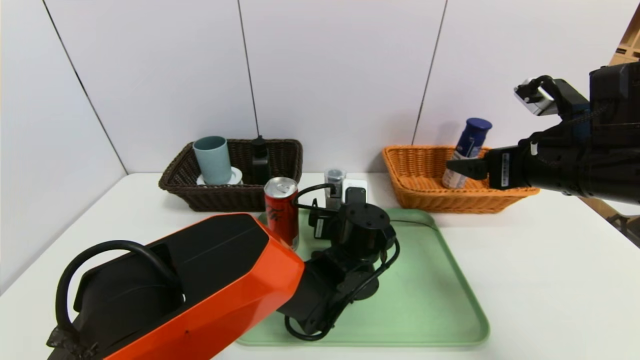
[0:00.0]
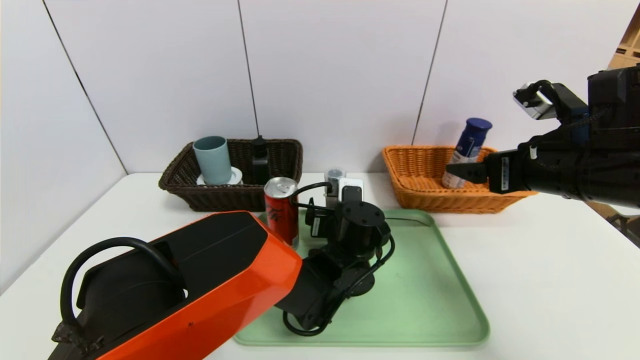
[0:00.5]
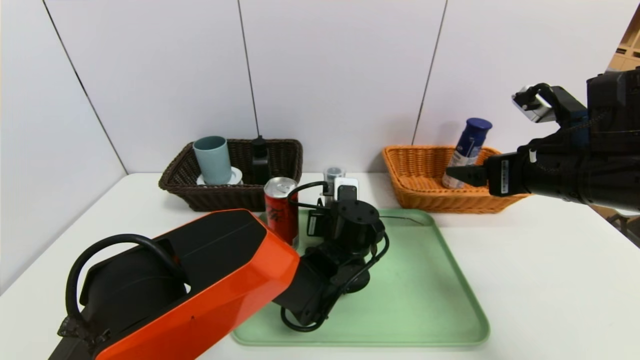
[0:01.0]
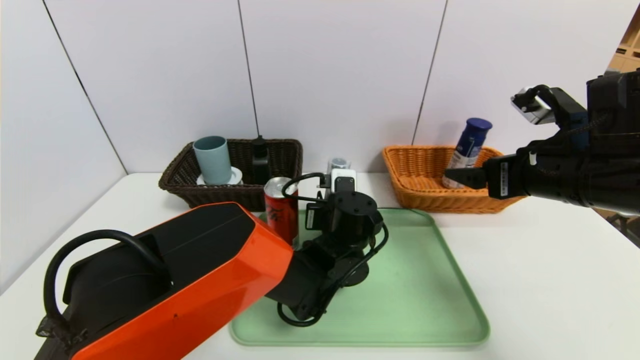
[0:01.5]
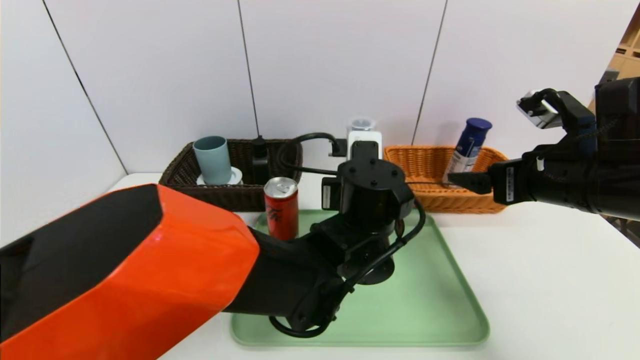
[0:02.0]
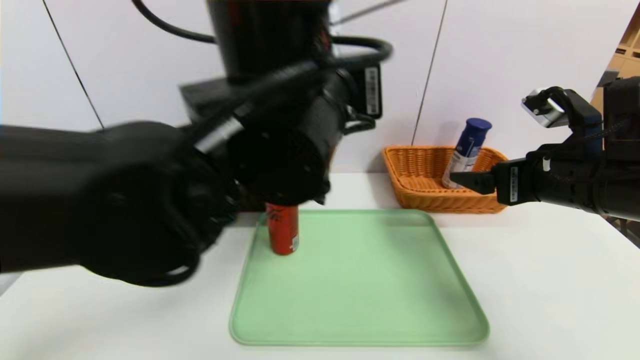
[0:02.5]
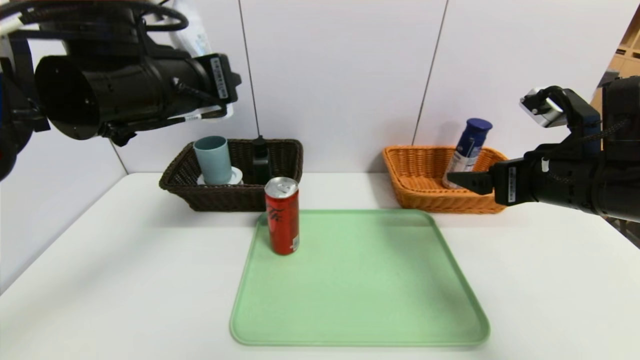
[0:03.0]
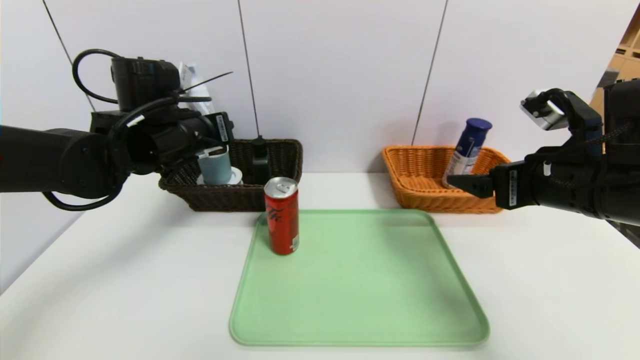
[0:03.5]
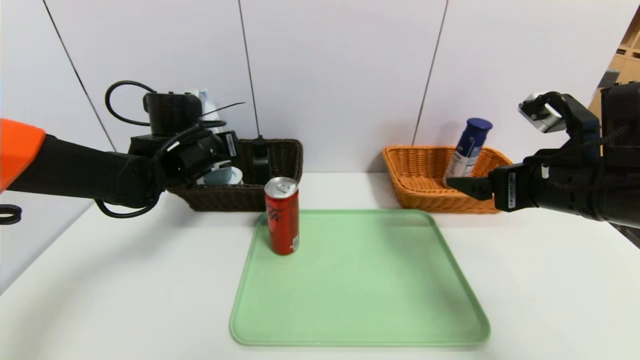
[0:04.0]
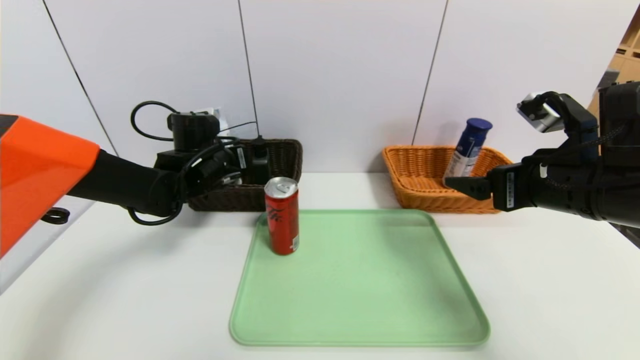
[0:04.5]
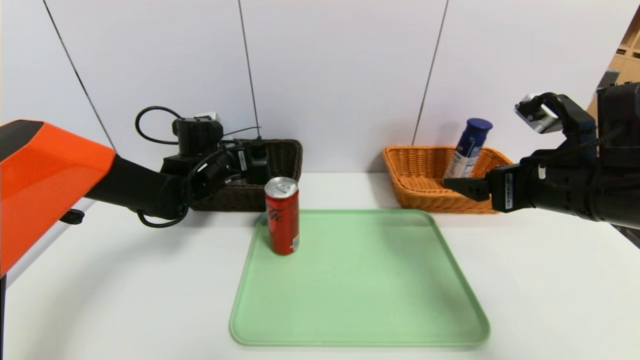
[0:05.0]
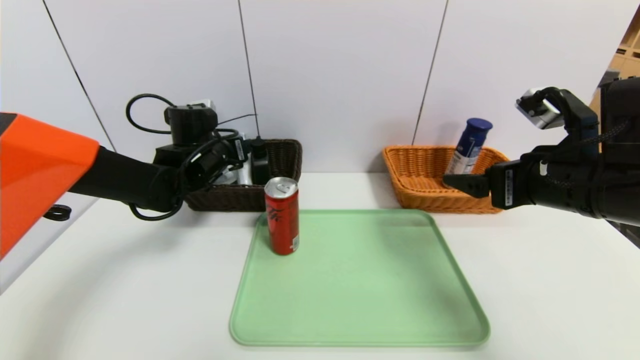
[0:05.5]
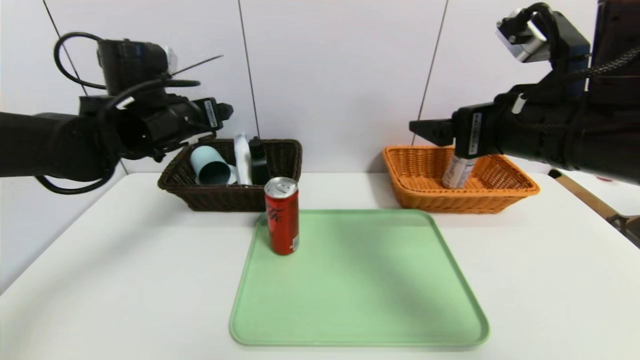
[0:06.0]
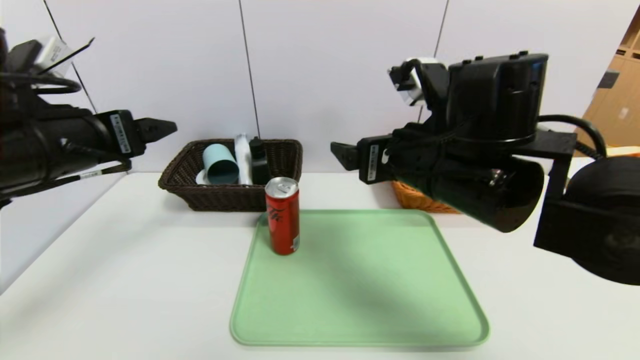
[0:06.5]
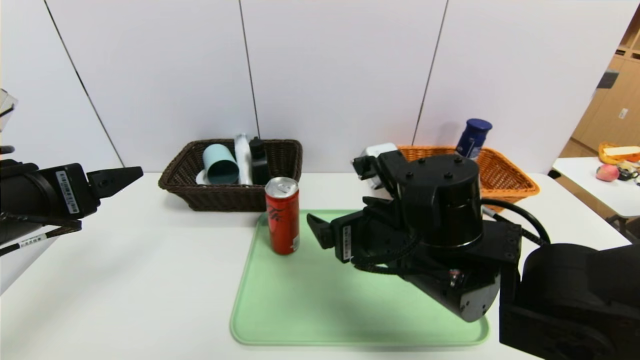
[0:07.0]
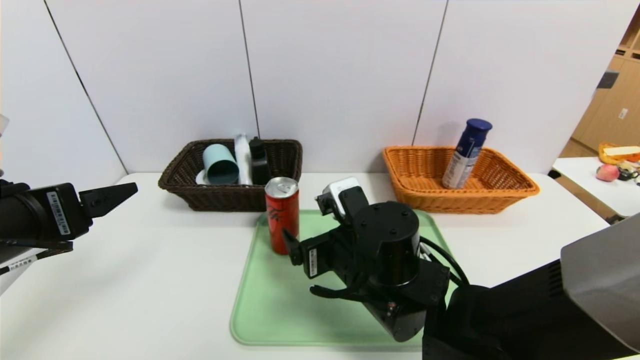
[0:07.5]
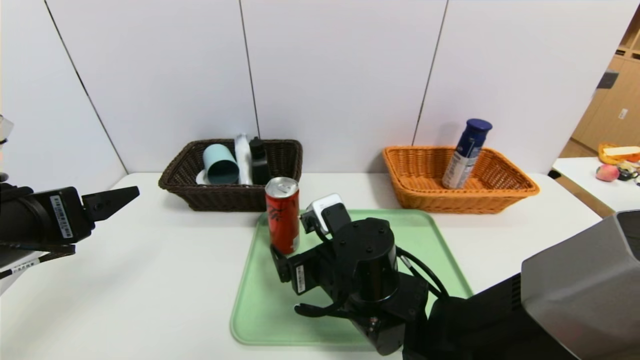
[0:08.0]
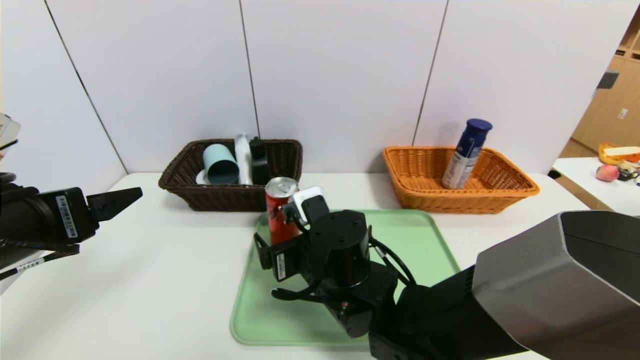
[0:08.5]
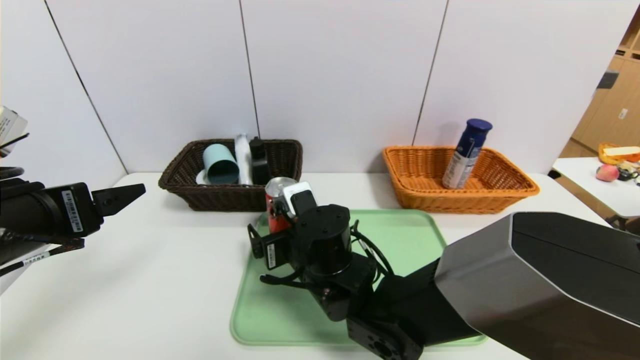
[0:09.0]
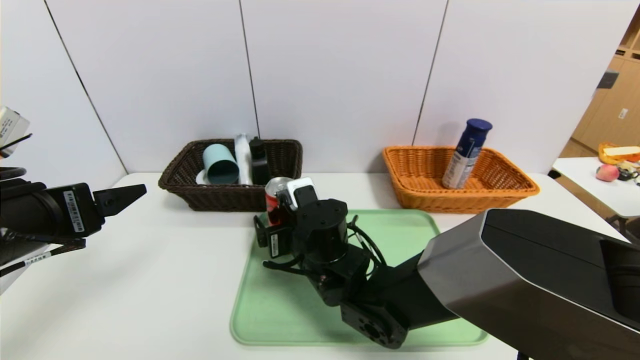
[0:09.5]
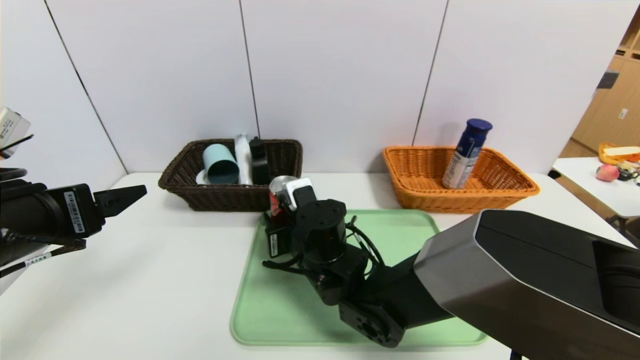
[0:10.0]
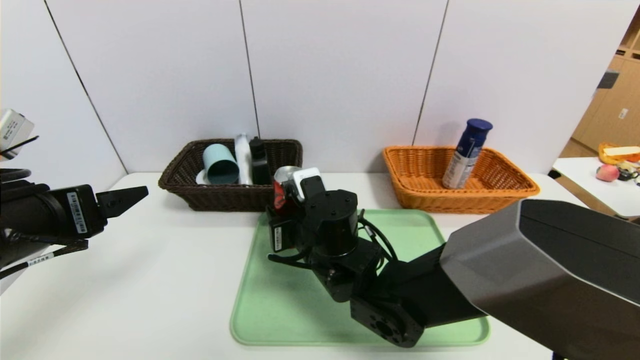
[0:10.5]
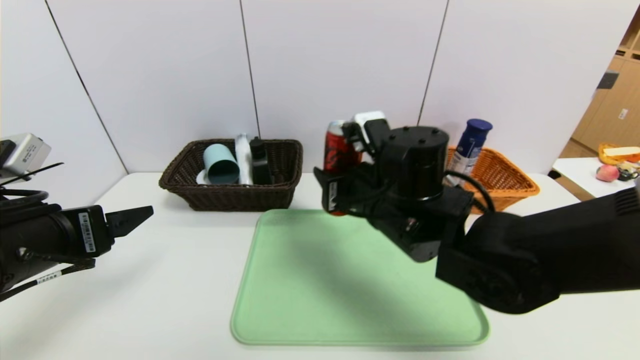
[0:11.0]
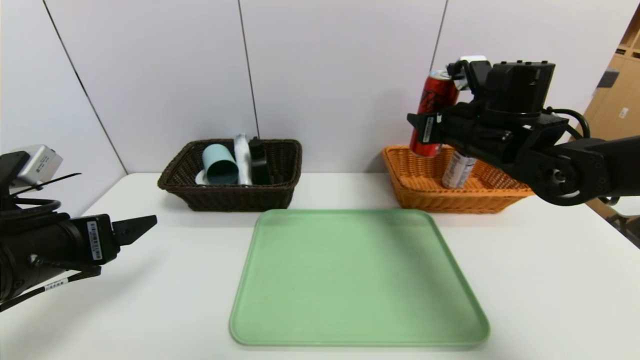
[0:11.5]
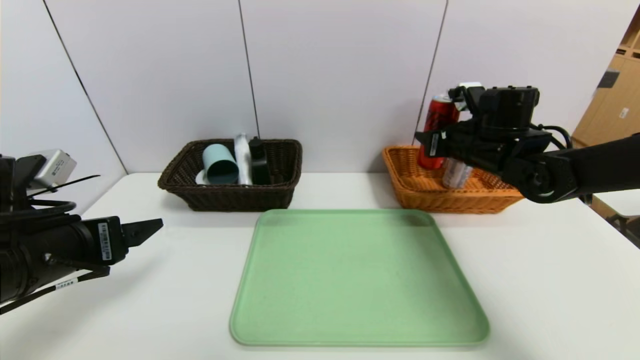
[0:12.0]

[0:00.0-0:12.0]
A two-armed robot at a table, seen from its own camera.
Task of the whole recording: place the food in the right basket with the right gripper, and place the non food items in the left basket with the left gripper.
Step, 0:00.0 to 0:06.0: Grasp the cleaning agent and put it in the left basket.
0:00.0 to 0:02.0: The left gripper travels upward by approximately 10 cm, and closes up.
0:02.0 to 0:04.0: The left gripper moves to the left and forward, roughly 30 cm.
0:04.0 to 0:06.0: The right gripper moves to the left and upward, roughly 10 cm, while the left gripper travels upward by roughly 5 cm, and opens its fingers.
0:06.0 to 0:08.0: The right gripper heads downward and to the left, covering some 25 cm; the left gripper is displaced backward by about 20 cm.
0:08.0 to 0:10.0: The right gripper heads forward, covering some 5 cm, and closes.
0:10.0 to 0:12.0: The right gripper travels to the right, upward and forward by approximately 30 cm.

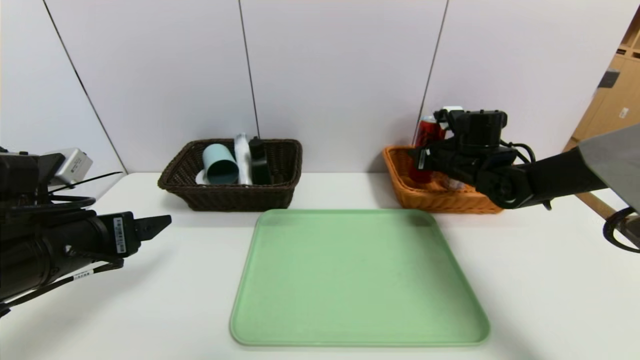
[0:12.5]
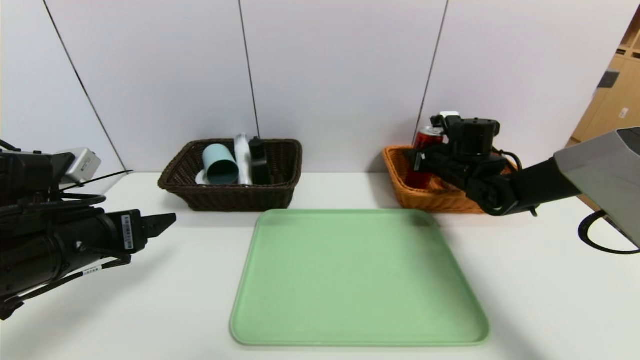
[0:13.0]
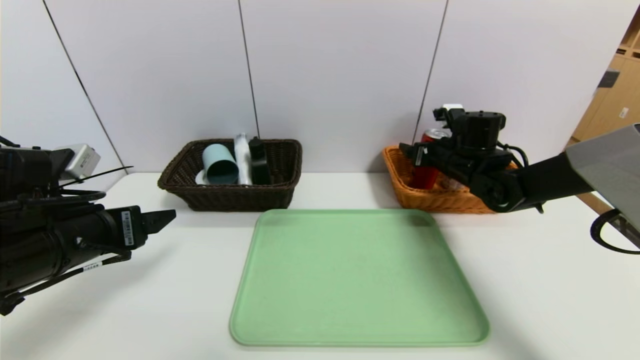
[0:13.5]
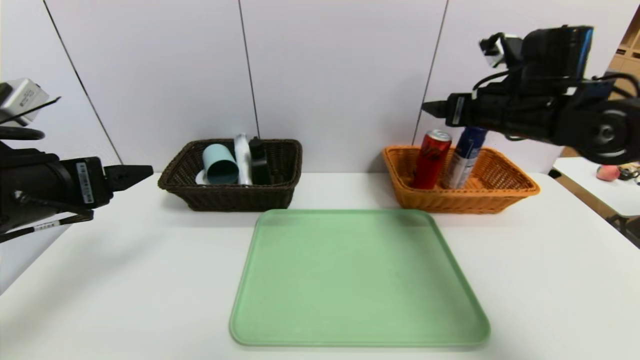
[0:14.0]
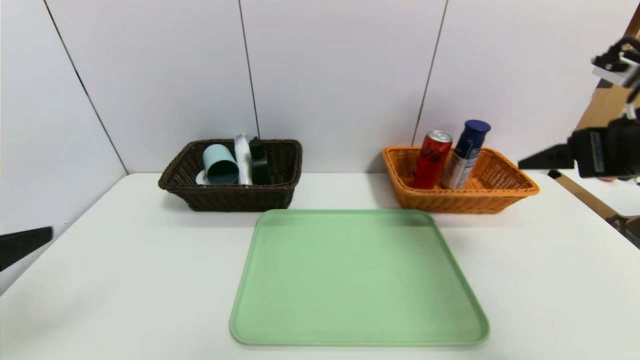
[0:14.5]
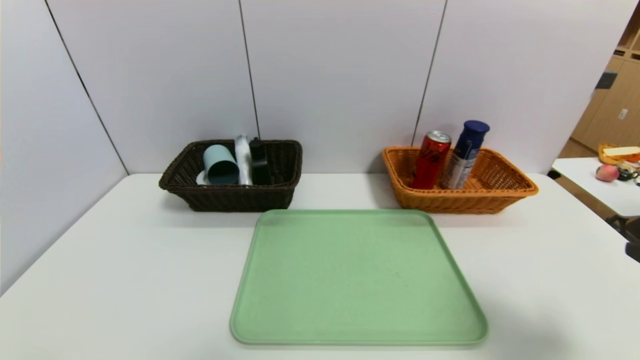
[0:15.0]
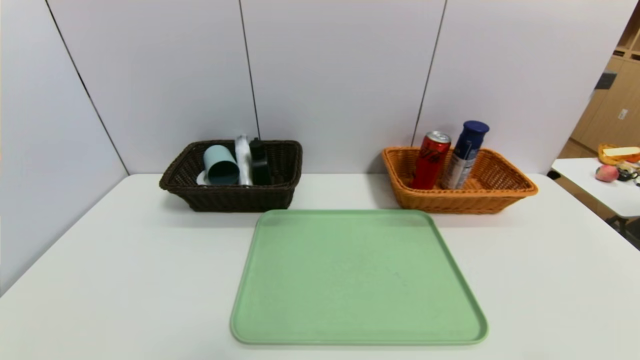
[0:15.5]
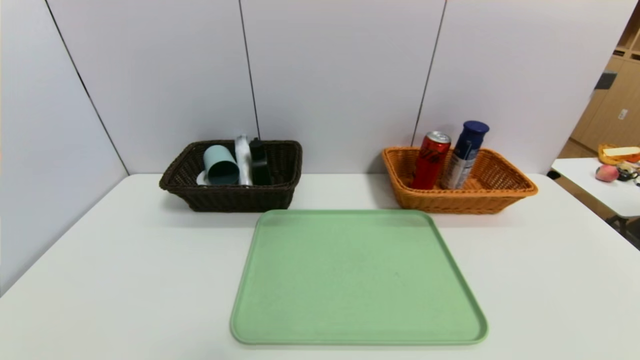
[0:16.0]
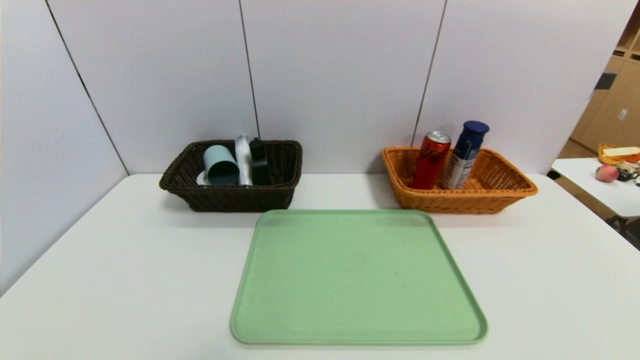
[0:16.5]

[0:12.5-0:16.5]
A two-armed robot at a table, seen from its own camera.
Task of the whole recording: place the food in the right basket with the right gripper, and place the non food items in the left basket with the left gripper.
0:12.5 to 0:14.5: The right gripper shifts some 30 cm backward and upward, and opens, while the left gripper moves backward and upward, about 15 cm.
0:14.5 to 0:16.5: The right gripper moves downward and backward, approximately 30 cm, while the left gripper shifts roughly 20 cm downward.
